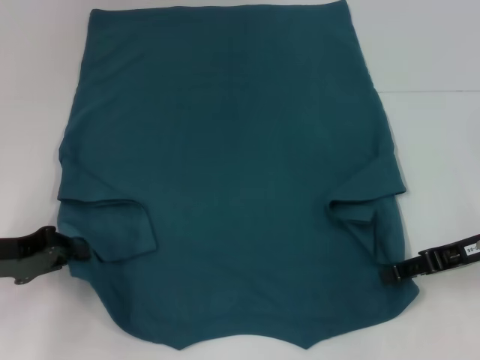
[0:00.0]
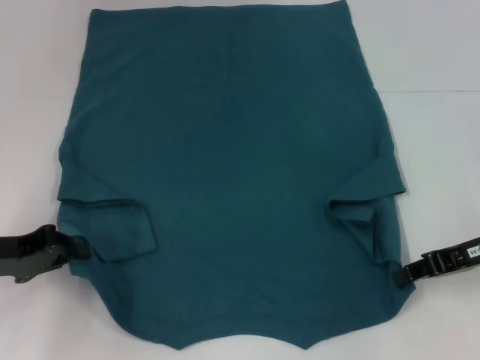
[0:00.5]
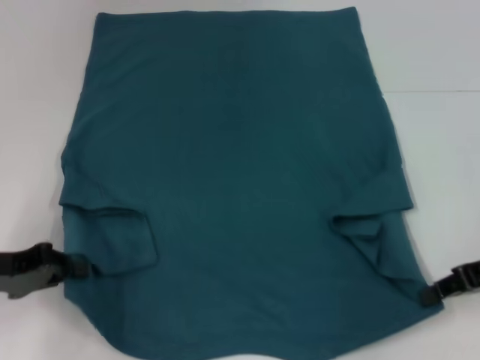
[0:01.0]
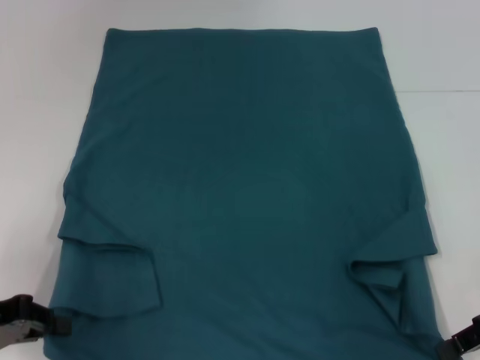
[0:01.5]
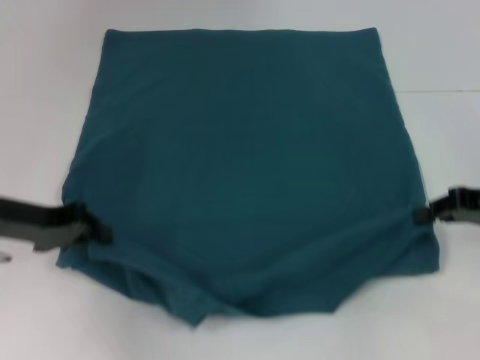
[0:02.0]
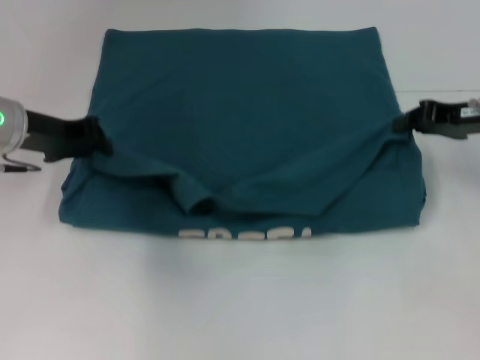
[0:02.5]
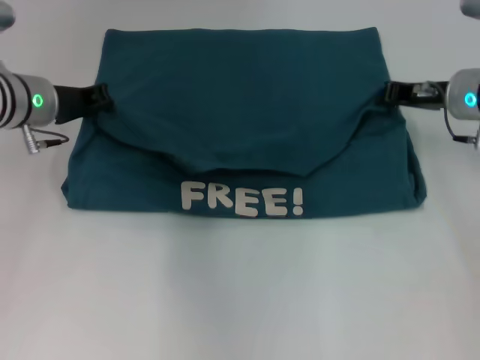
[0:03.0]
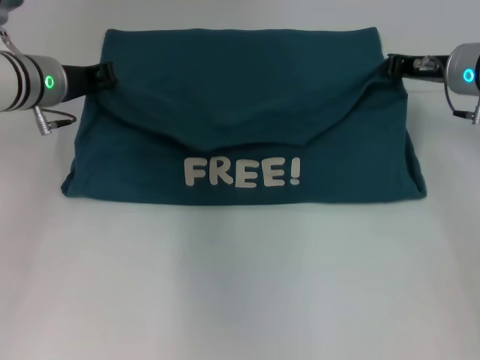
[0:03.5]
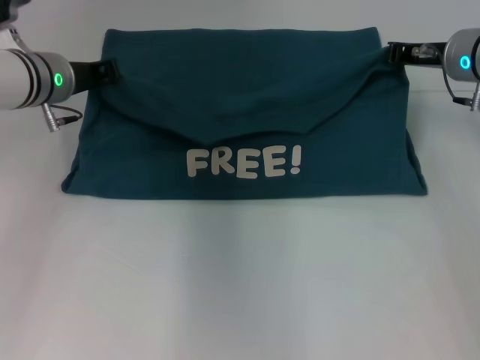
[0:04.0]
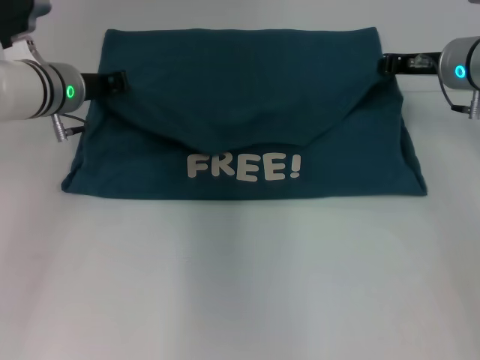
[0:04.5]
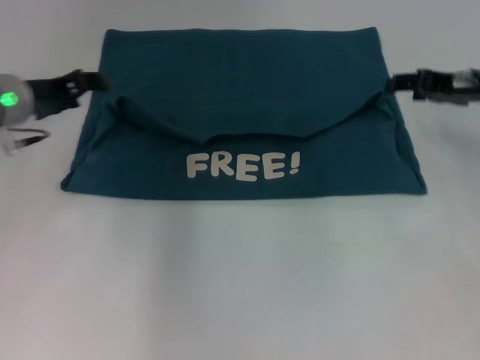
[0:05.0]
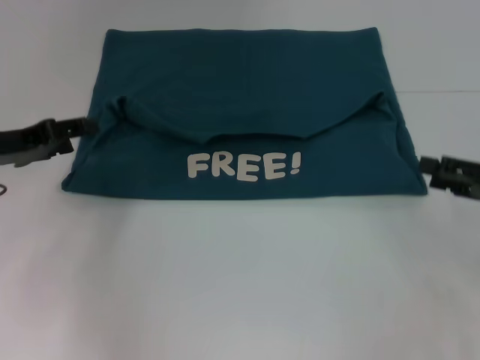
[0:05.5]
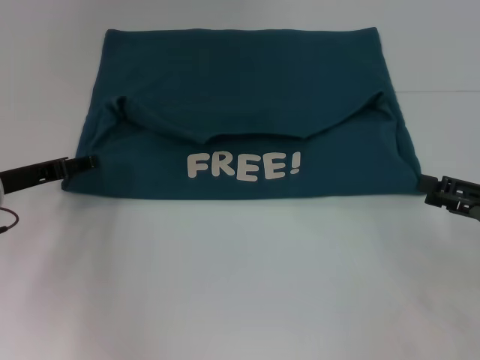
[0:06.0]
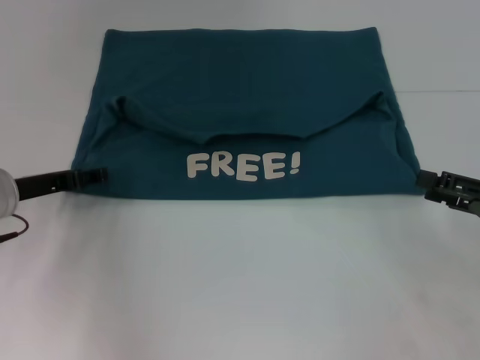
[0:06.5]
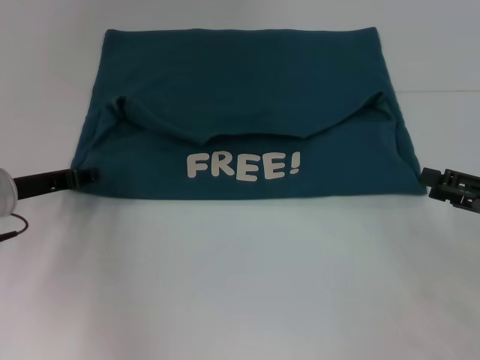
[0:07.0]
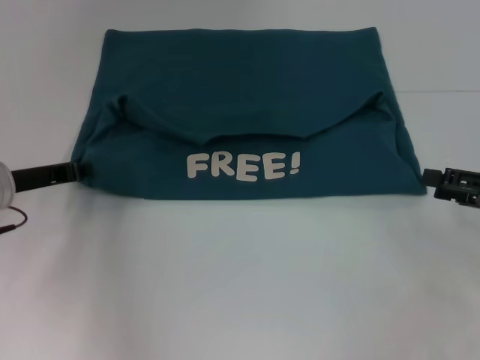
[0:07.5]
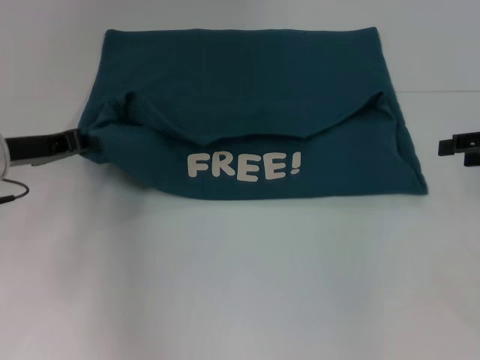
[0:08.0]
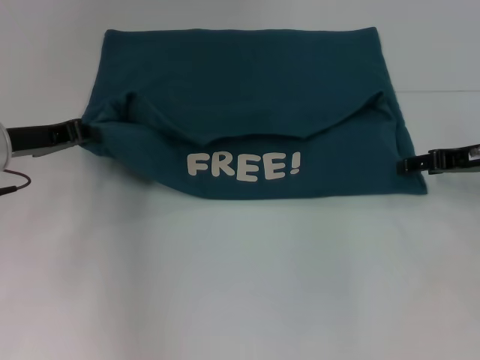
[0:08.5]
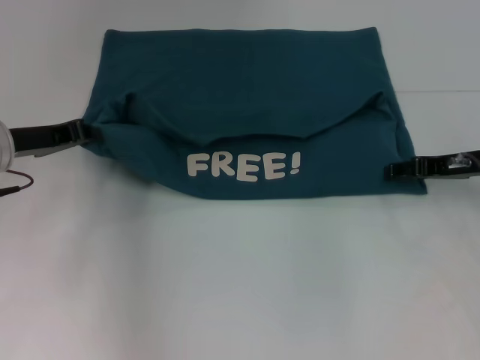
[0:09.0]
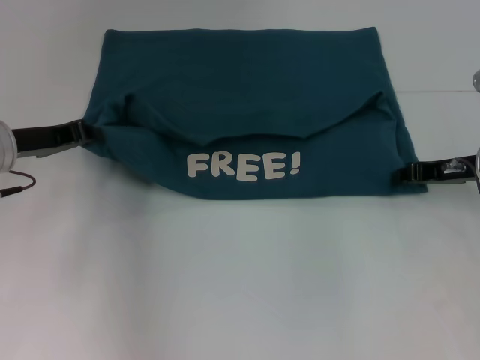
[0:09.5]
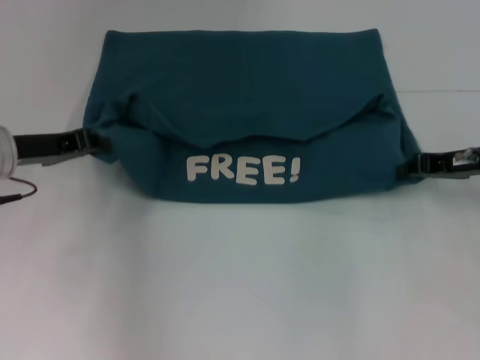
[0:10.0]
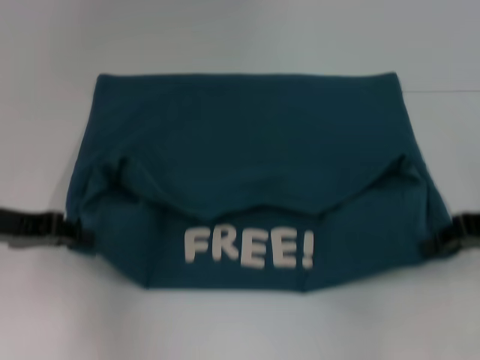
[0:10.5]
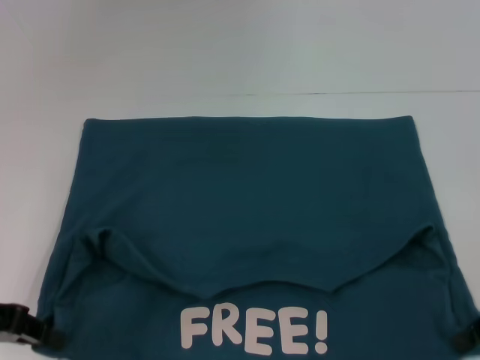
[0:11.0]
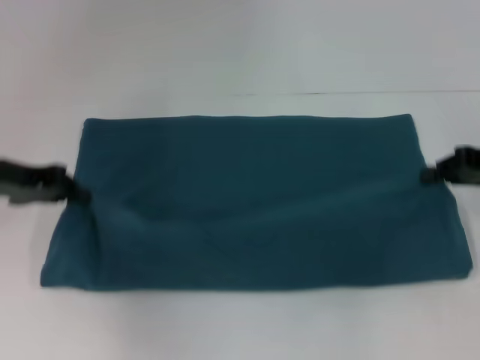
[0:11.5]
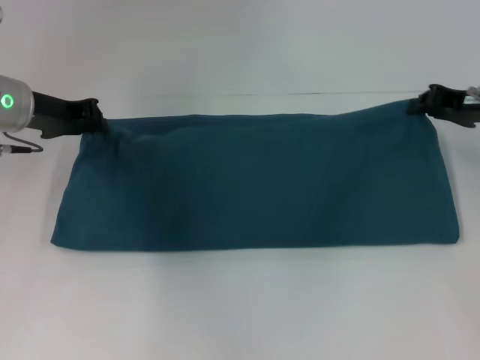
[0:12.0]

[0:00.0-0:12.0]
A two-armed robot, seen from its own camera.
Step, 0:01.0 to 0:04.5: Fold the clothes to the left.
Step, 0:01.0 to 0:04.5: Fold the clothes to the right.
Step, 0:05.0 to 0:10.5: Pull the clothes with your left hand.
Step, 0:05.0 to 0:10.5: Pull the clothes with your right hand.
0:00.0 to 0:02.0: The right gripper closes. The left gripper ends up some 5 cm from where it was.
0:02.0 to 0:04.0: The right gripper goes about 15 cm forward and to the left, while the left gripper shifts approximately 15 cm forward and to the right.
0:04.0 to 0:06.0: The right gripper moves backward and to the right, about 20 cm, and opens its fingers; the left gripper travels backward, to the left and downward by roughly 15 cm, and opens up.
0:06.0 to 0:08.0: The left gripper closes up. Meanwhile the right gripper goes some 10 cm forward and upward.
0:08.0 to 0:10.0: The right gripper goes approximately 5 cm to the left, and closes its fingers.
0:10.0 to 0:12.0: The right gripper goes backward and returns, about 10 cm each way; the left gripper moves some 10 cm backward and comes back.

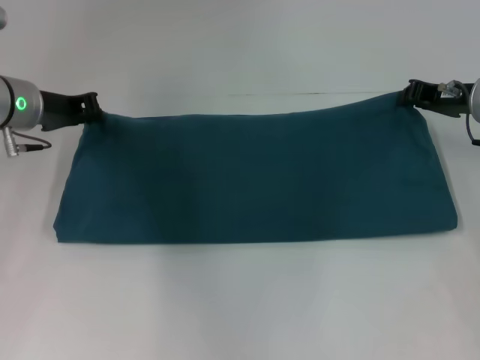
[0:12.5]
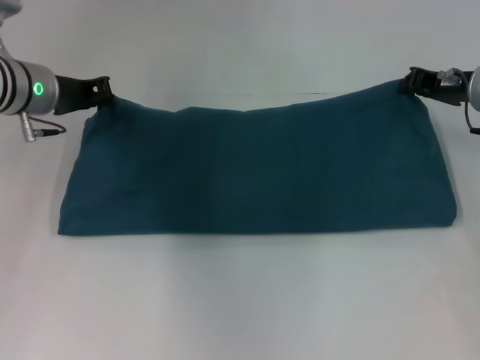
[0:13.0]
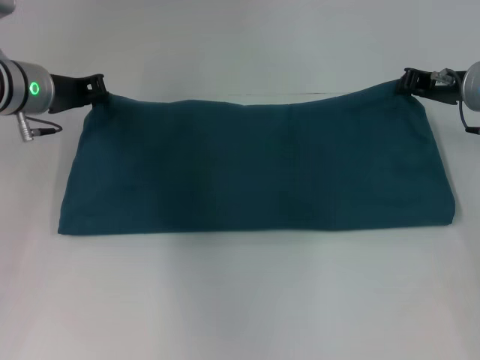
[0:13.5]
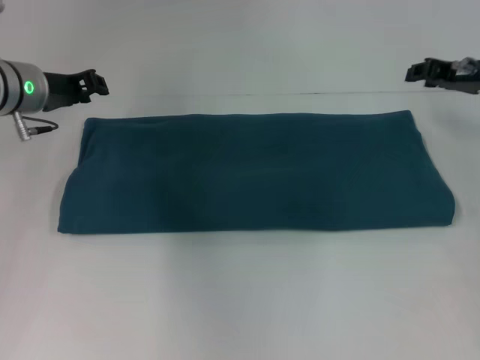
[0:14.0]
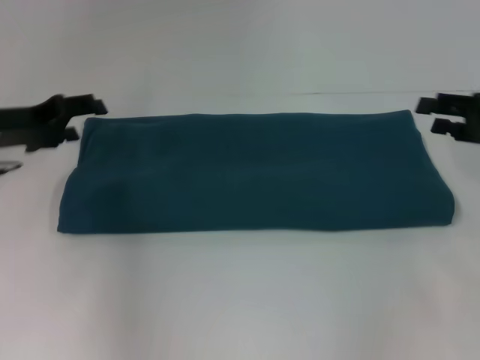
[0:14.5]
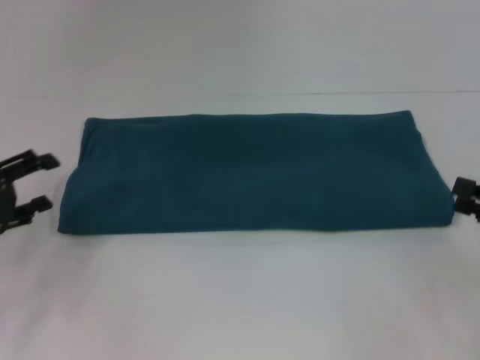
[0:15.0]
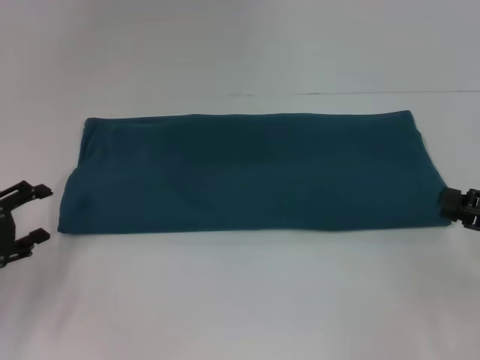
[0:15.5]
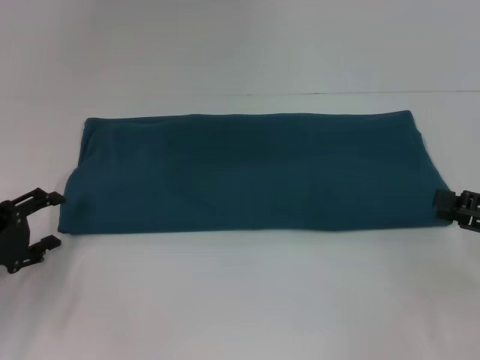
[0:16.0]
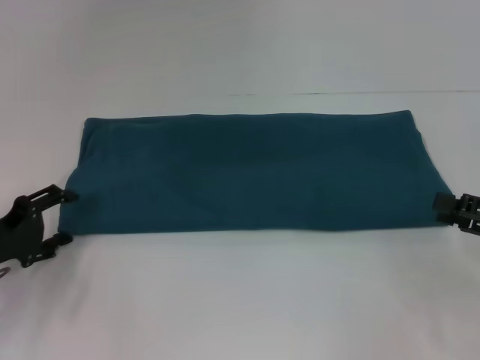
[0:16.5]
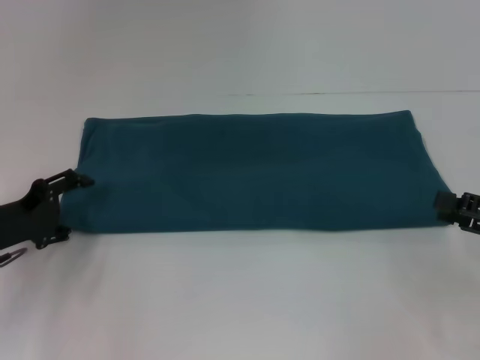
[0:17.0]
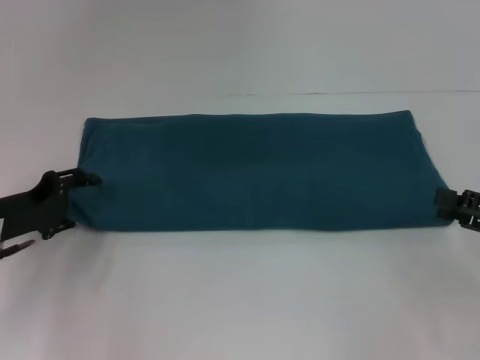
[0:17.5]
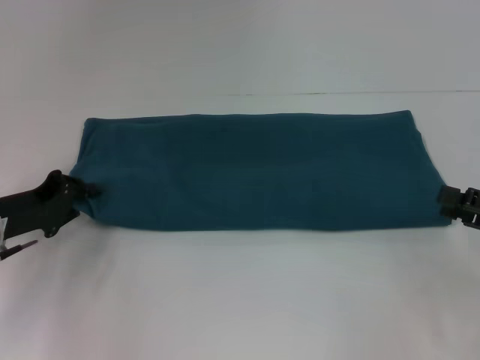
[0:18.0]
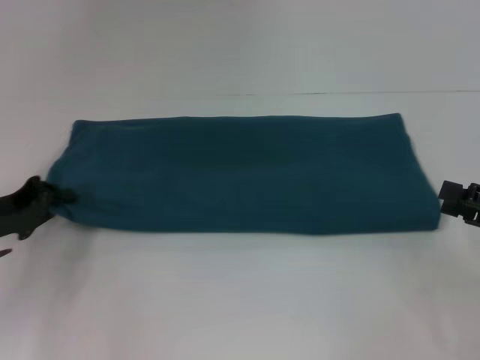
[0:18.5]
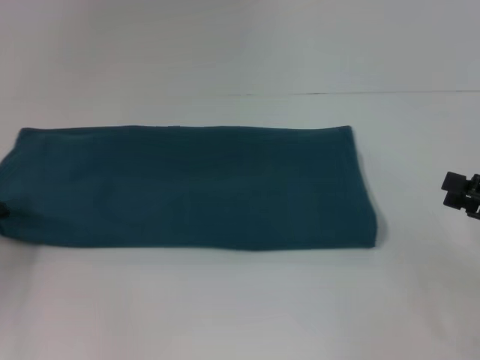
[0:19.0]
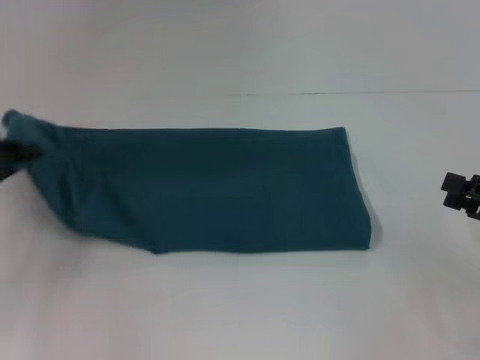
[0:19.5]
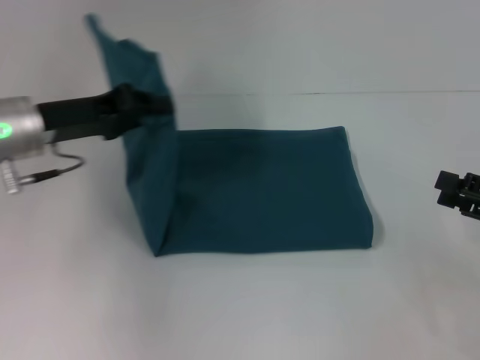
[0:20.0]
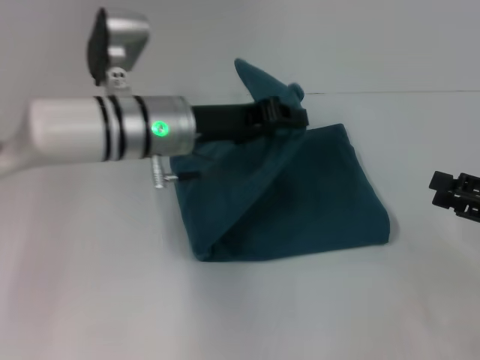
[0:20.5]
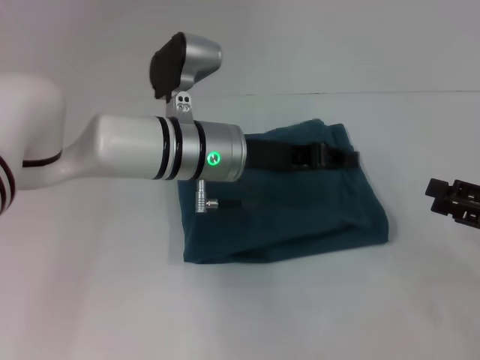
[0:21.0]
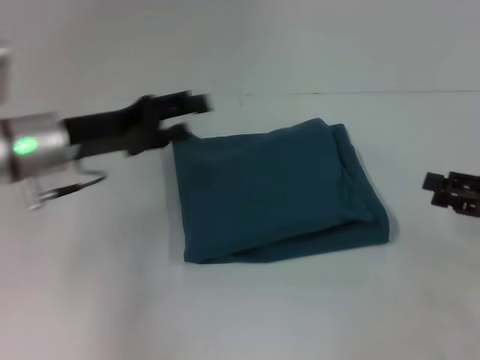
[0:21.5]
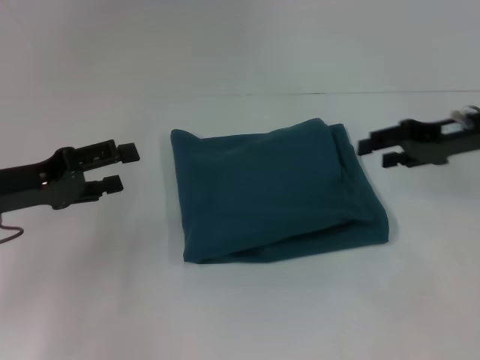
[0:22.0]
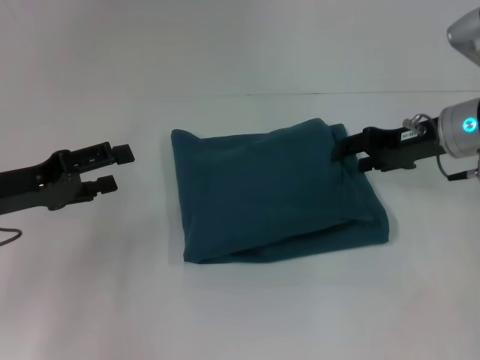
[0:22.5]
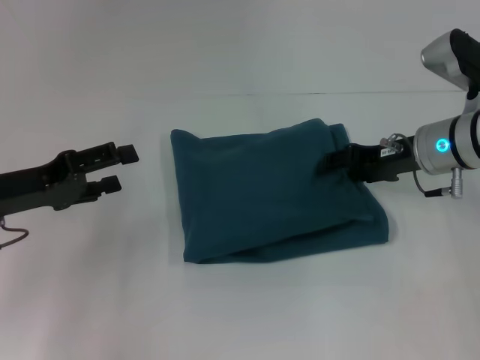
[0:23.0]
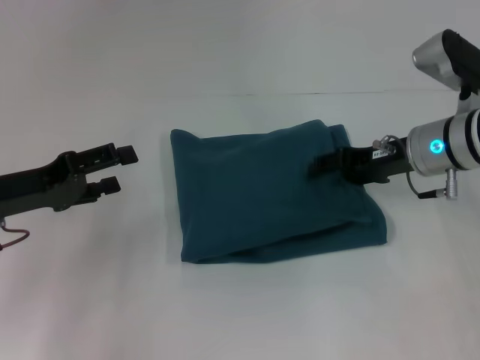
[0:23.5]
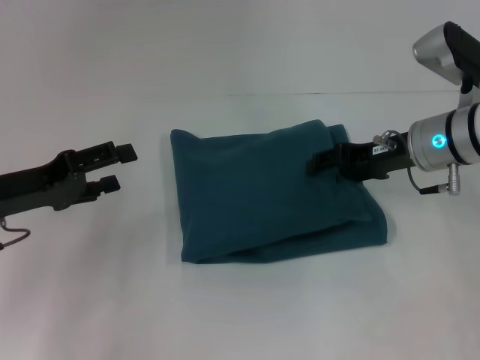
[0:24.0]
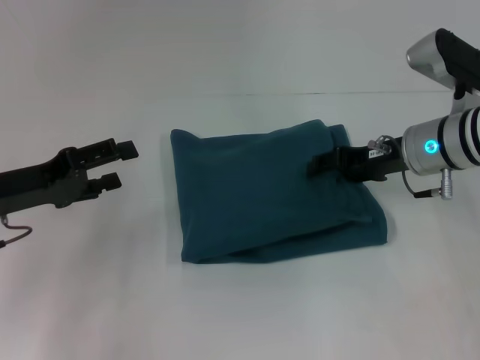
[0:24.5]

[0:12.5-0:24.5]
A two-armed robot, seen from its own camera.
Step, 0:12.5 to 0:21.0: Fold the clothes to the left.
0:12.5 to 0:14.5: The right gripper moves backward and to the right, roughly 10 cm, and opens up. Meanwhile the left gripper travels backward by roughly 5 cm, and opens its fingers.
0:14.5 to 0:16.5: The left gripper moves downward and backward, approximately 15 cm. Meanwhile the right gripper moves backward, some 10 cm.
0:16.5 to 0:18.5: The left gripper closes.
0:18.5 to 0:20.5: The left gripper is displaced to the right and upward by some 20 cm.
0:20.5 to 0:22.5: The right gripper shifts some 20 cm forward and to the left; the left gripper is displaced to the left and backward by some 20 cm, and opens its fingers.
0:22.5 to 0:24.5: The grippers stay close to where they were, moving slightly.

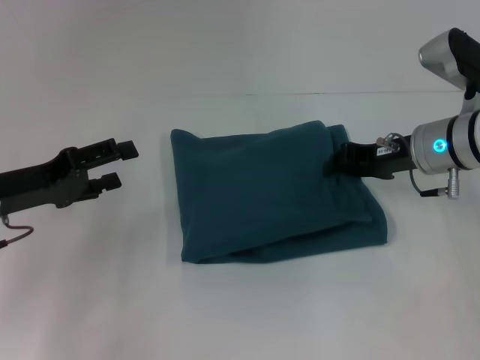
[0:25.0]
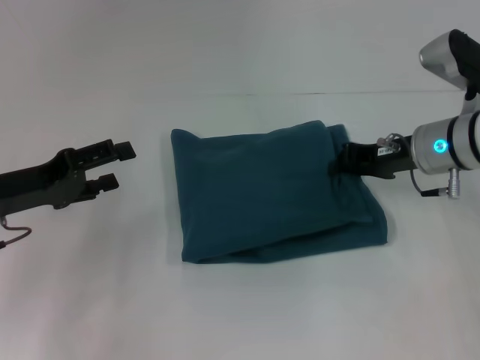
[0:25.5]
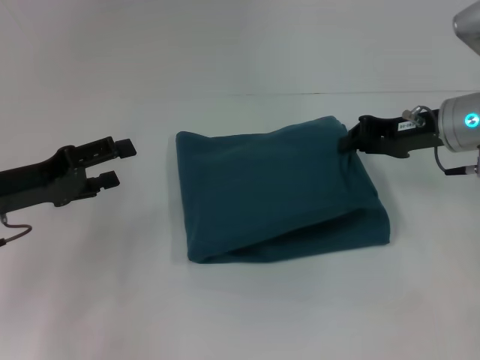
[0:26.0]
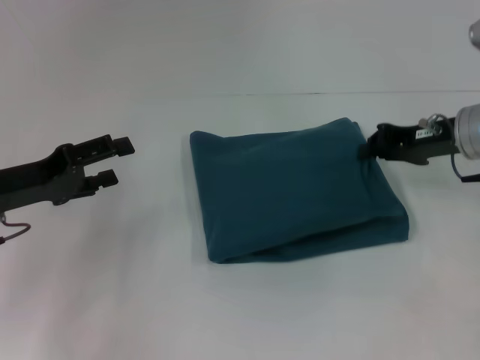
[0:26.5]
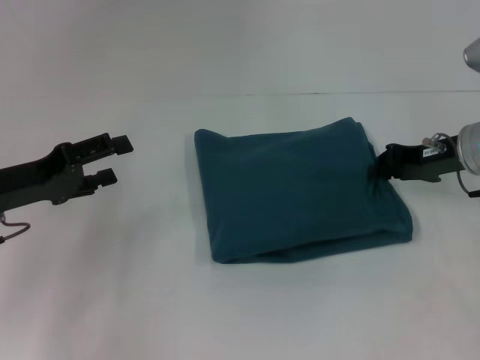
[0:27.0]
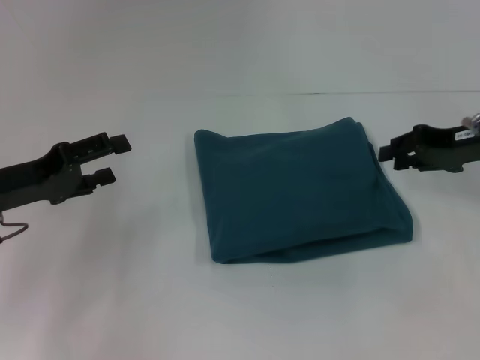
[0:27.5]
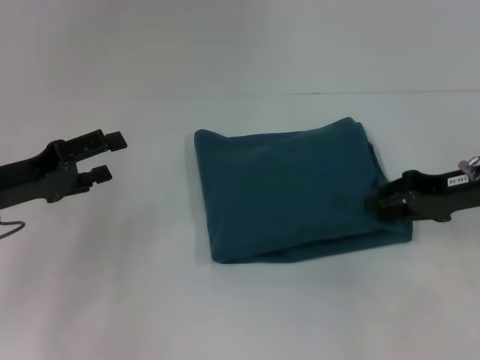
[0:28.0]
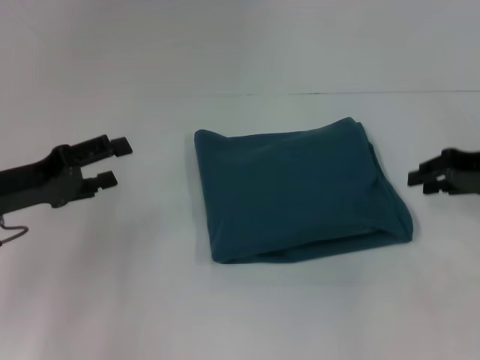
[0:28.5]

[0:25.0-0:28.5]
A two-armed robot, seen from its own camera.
0:25.0 to 0:27.0: There are only small adjustments of the grippers.
0:27.0 to 0:28.5: The right gripper is displaced to the right by approximately 5 cm, and opens.
